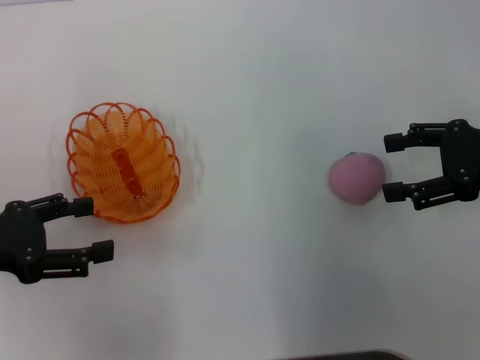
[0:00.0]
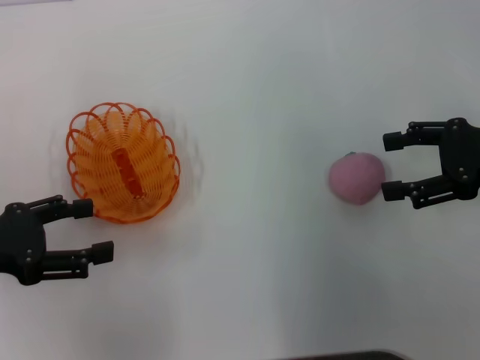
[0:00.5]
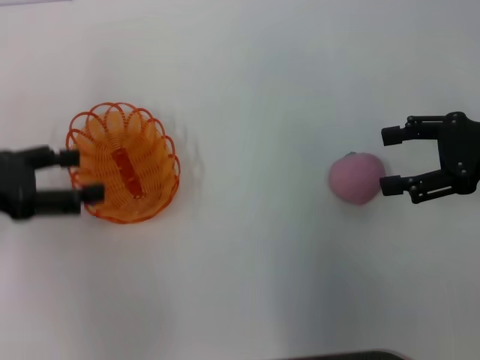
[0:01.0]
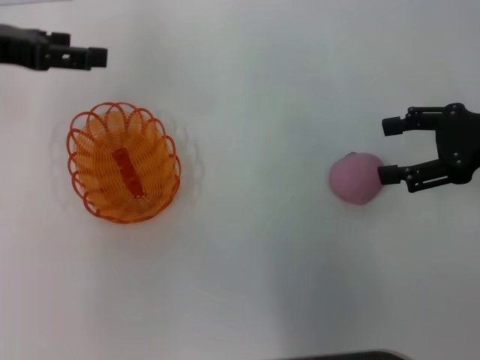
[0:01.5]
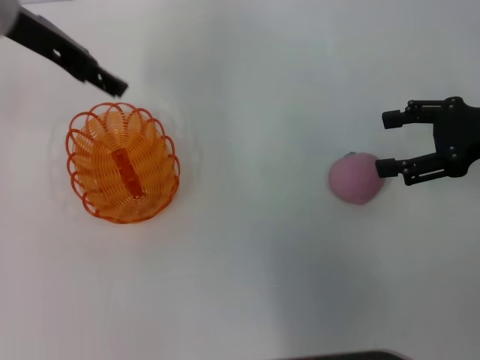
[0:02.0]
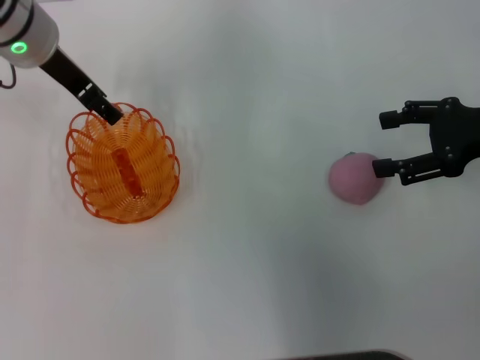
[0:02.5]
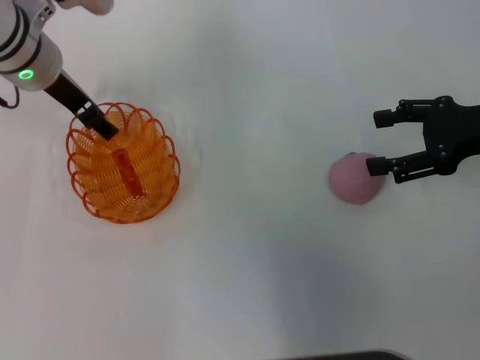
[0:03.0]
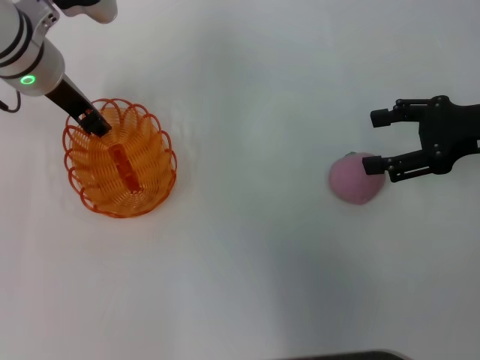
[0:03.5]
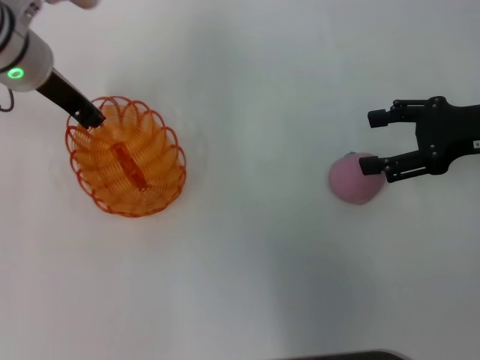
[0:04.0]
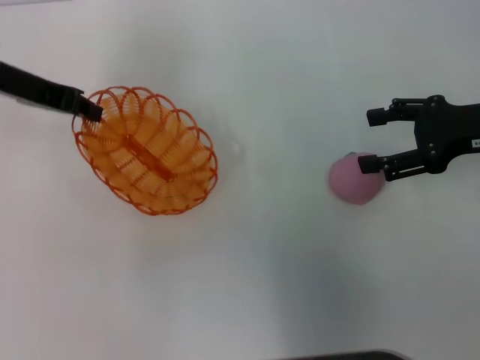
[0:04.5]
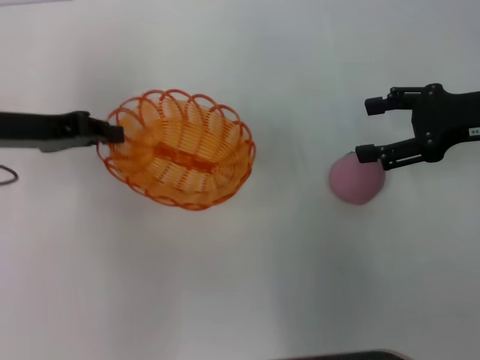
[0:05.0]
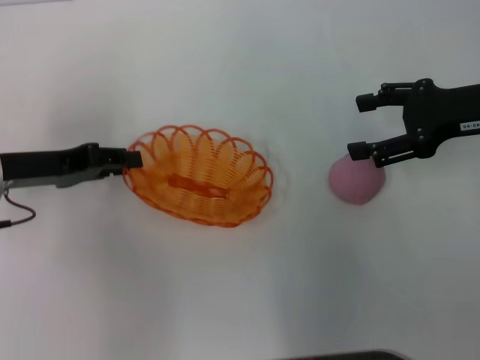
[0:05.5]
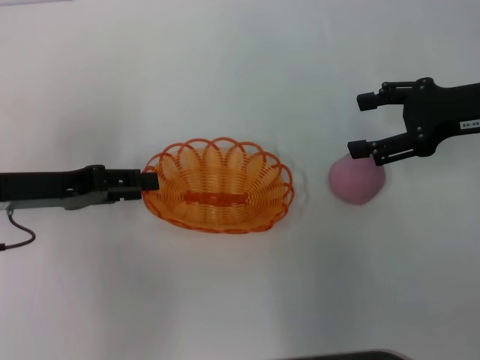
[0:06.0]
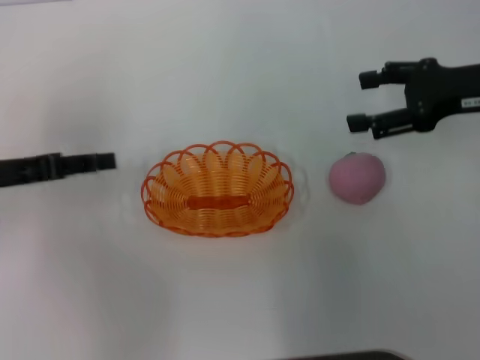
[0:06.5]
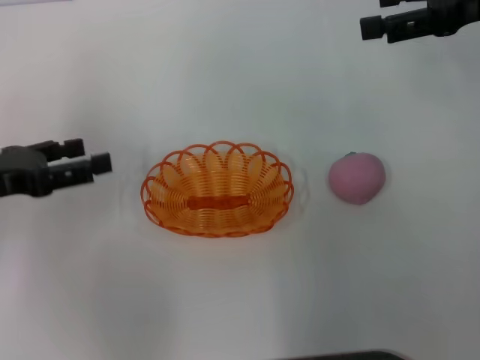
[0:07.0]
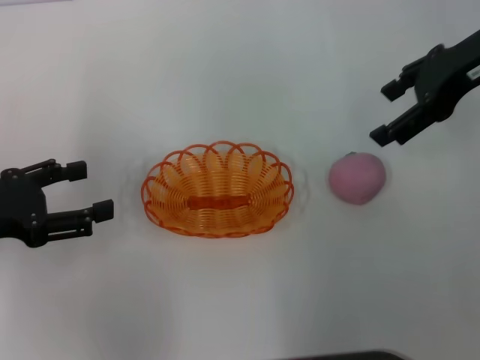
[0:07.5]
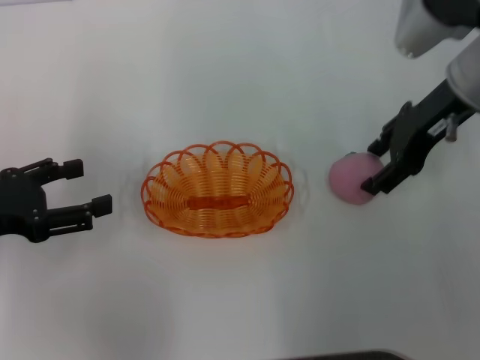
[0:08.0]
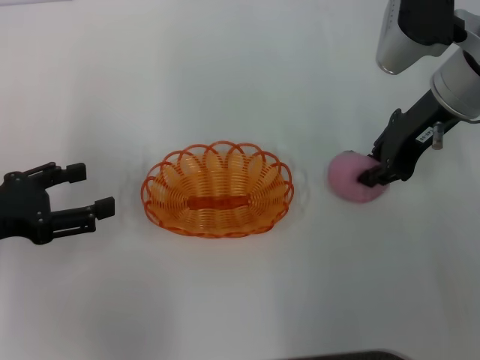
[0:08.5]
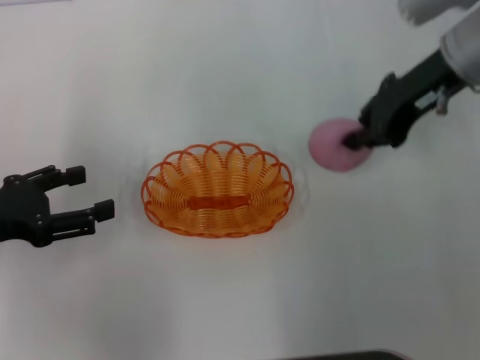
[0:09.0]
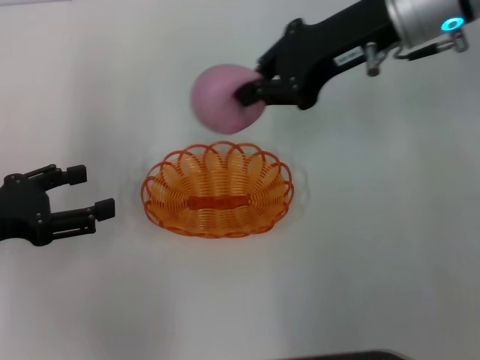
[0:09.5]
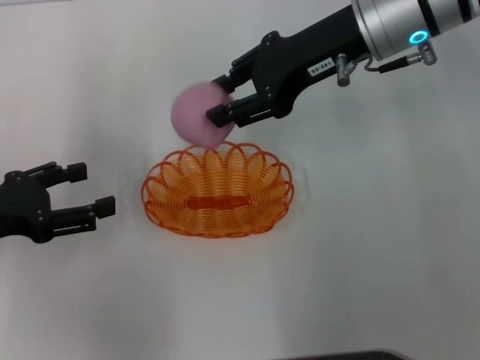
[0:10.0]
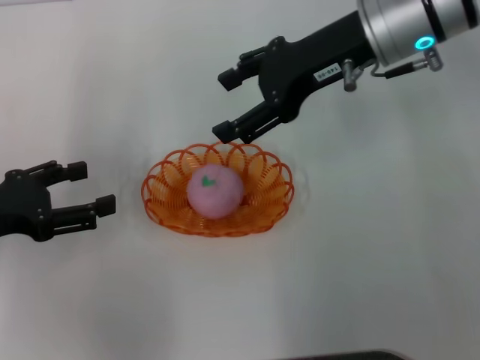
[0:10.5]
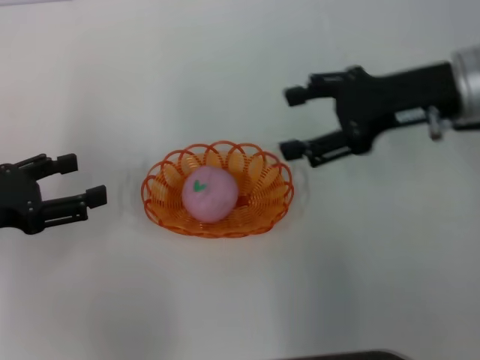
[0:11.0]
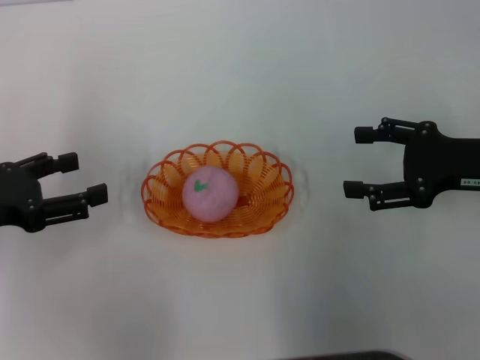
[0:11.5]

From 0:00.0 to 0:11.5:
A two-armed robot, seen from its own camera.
Step, from 0:00.0 to 0:04.0: Pick up the basket with the left gripper.
Step, from 0:04.5 to 0:06.5: Place the basket in the center of view with the left gripper.
Step, from 0:07.0 to 0:09.0: Pick up the peach with the right gripper.
Step, from 0:09.5 to 0:10.5: Place the peach into the basket with the right gripper.
From 0:00.0 to 0:02.0: The left gripper goes about 25 cm forward, to the right and upward.
From 0:02.0 to 0:04.0: The left gripper is displaced downward by roughly 5 cm, and closes.
From 0:04.0 to 0:06.0: The left gripper travels backward, to the left and downward by roughly 15 cm.
From 0:06.0 to 0:07.5: The left gripper shifts roughly 5 cm backward, and opens its fingers. Meanwhile the right gripper goes about 10 cm upward.
From 0:07.5 to 0:09.5: The right gripper is displaced to the left by about 10 cm, and closes.
From 0:09.5 to 0:11.5: The right gripper travels to the right, downward and backward by about 20 cm, and opens its fingers.

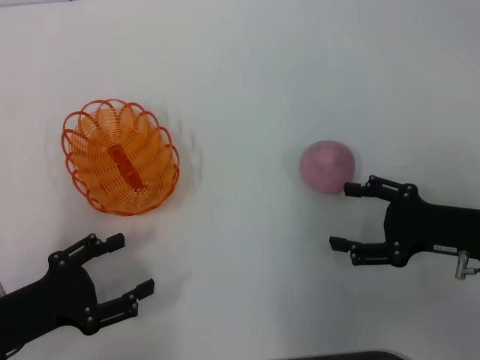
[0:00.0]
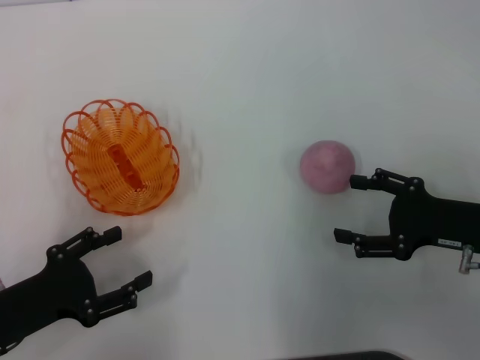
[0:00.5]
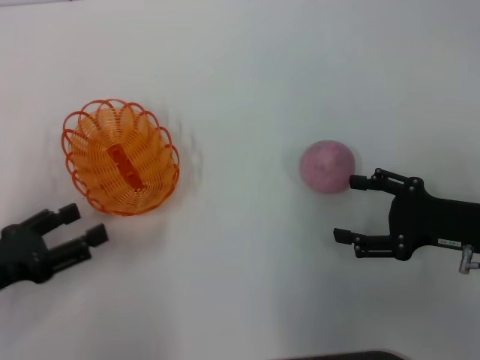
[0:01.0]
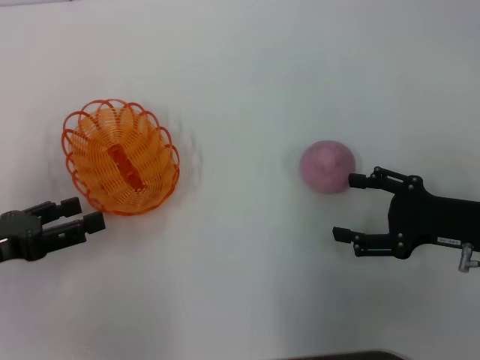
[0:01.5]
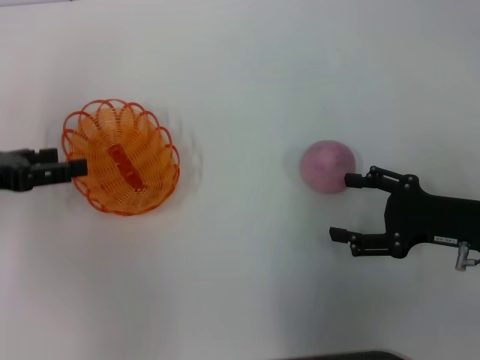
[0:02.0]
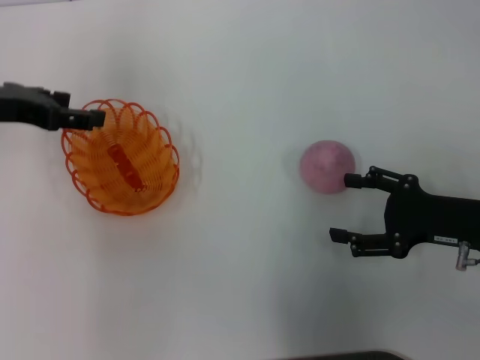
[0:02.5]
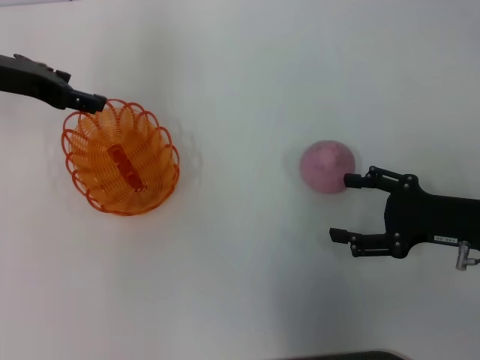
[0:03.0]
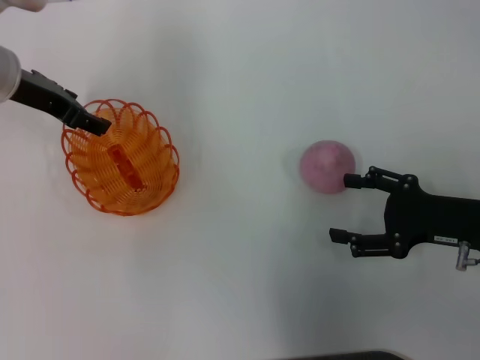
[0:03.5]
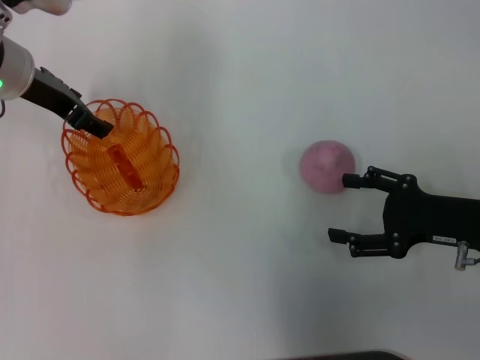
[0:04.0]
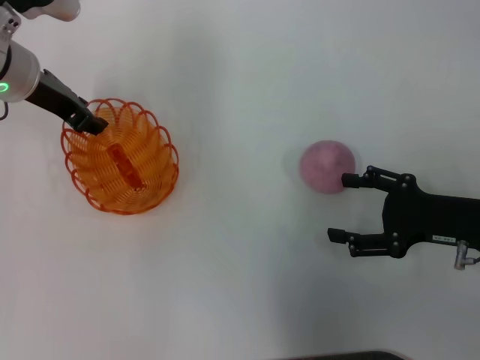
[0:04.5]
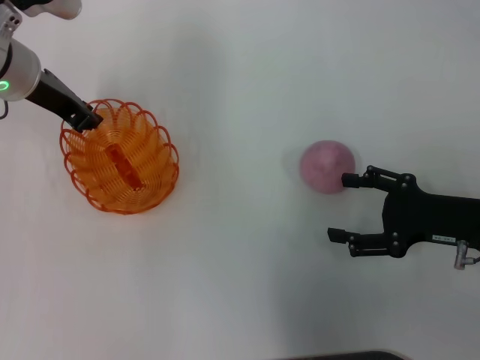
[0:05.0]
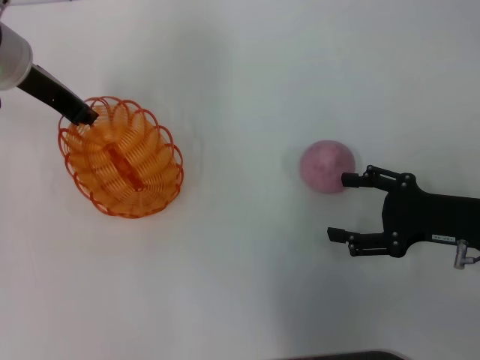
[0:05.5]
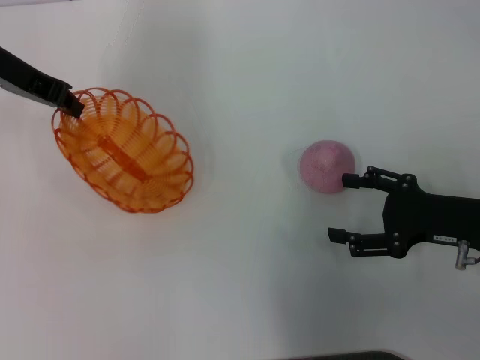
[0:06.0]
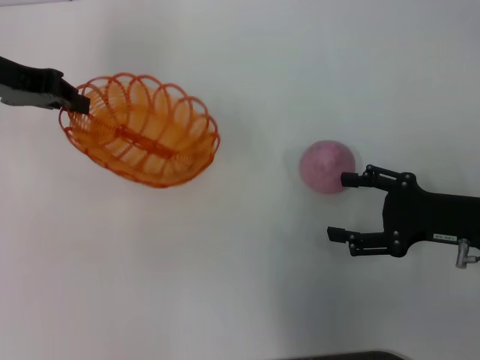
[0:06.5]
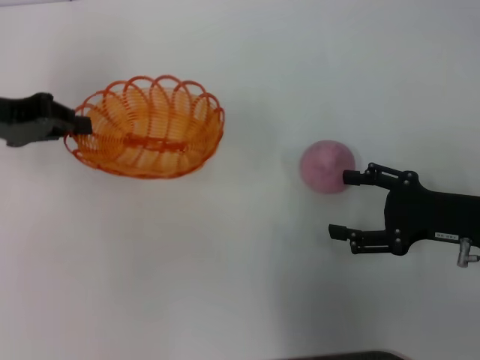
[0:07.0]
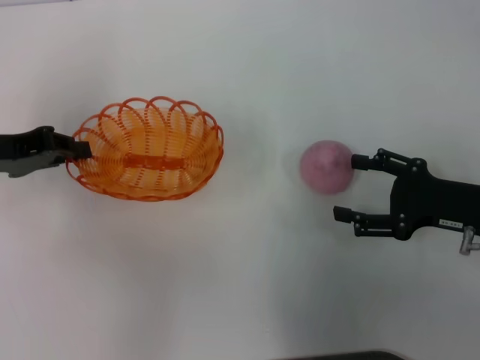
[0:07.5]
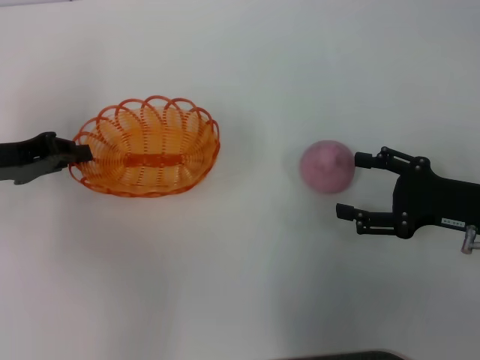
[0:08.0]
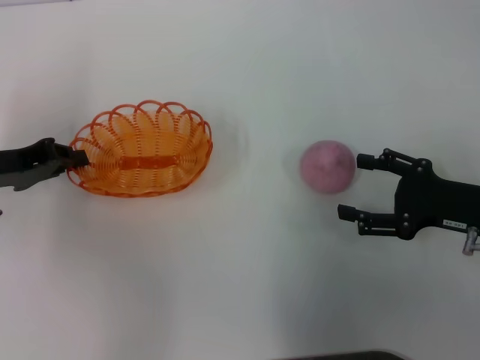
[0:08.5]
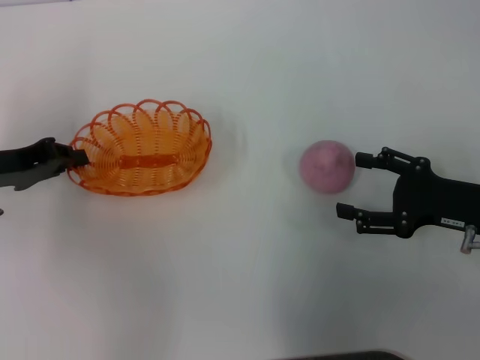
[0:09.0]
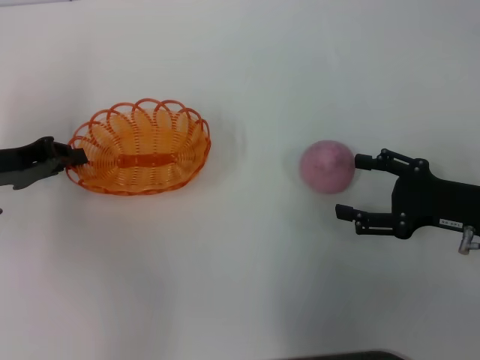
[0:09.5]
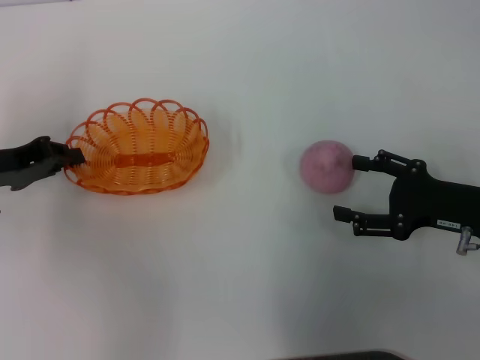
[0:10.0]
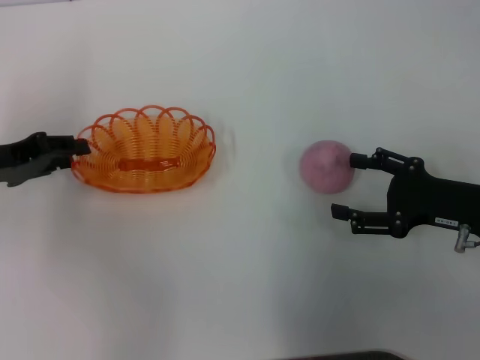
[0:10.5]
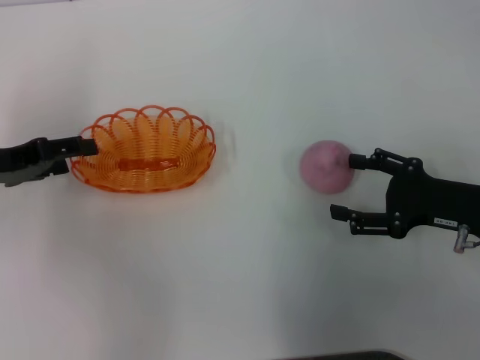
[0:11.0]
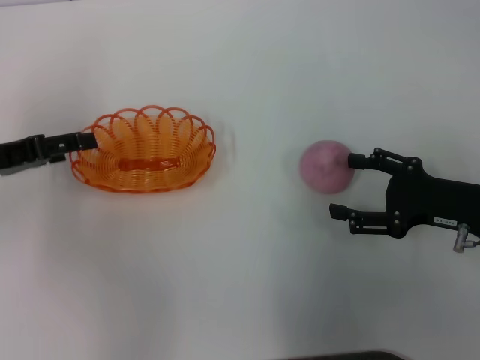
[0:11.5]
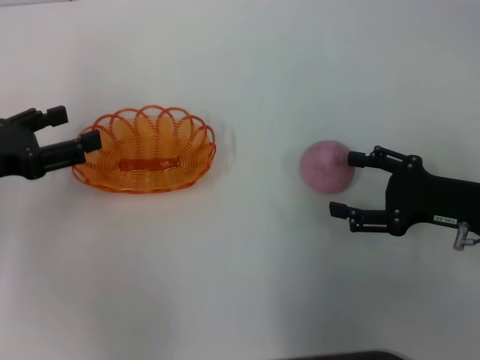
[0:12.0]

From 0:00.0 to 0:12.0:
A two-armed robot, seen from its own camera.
Step, from 0:00.0 to 0:06.0: Pick up the basket with the left gripper.
From 0:00.0 to 0:02.0: The left gripper shifts about 15 cm forward and upward.
From 0:02.0 to 0:04.0: The left gripper travels forward and to the right by approximately 15 cm.
From 0:04.0 to 0:06.0: The left gripper moves about 5 cm, and closes up.
From 0:06.0 to 0:08.0: The left gripper goes about 15 cm backward, downward and to the left.
From 0:08.0 to 0:10.0: There are only small adjustments of the grippers.
From 0:10.0 to 0:12.0: The left gripper opens up.

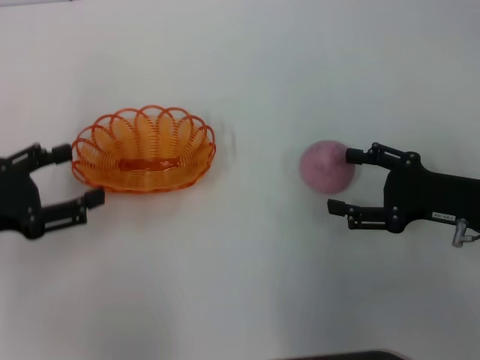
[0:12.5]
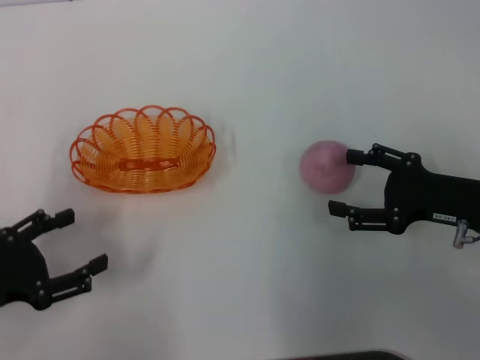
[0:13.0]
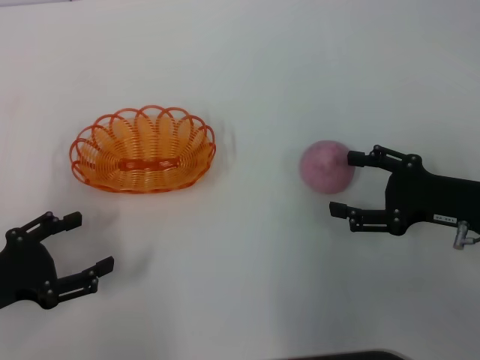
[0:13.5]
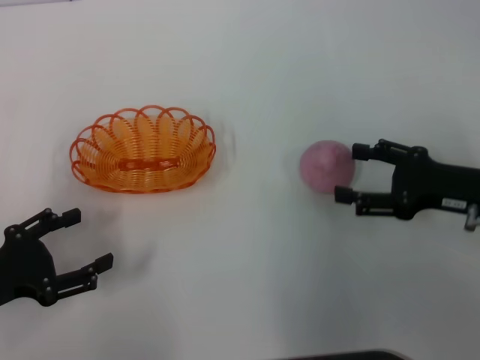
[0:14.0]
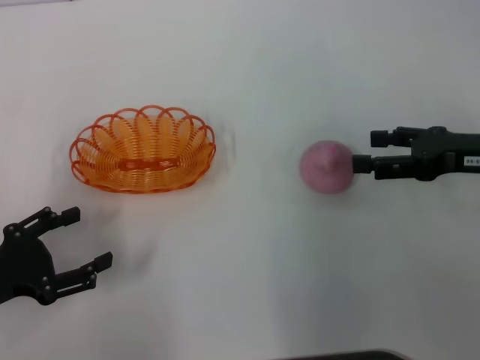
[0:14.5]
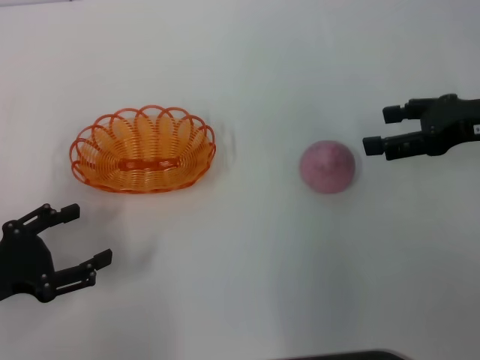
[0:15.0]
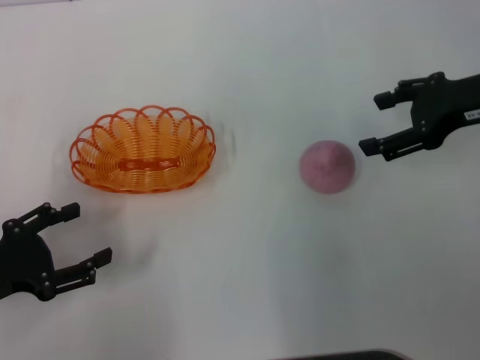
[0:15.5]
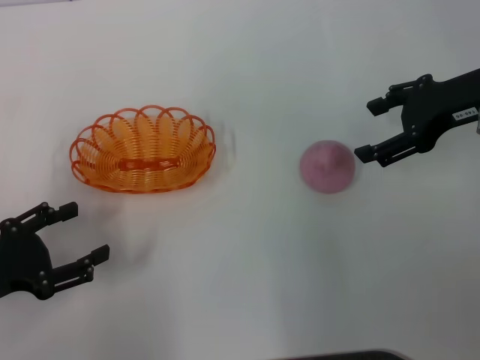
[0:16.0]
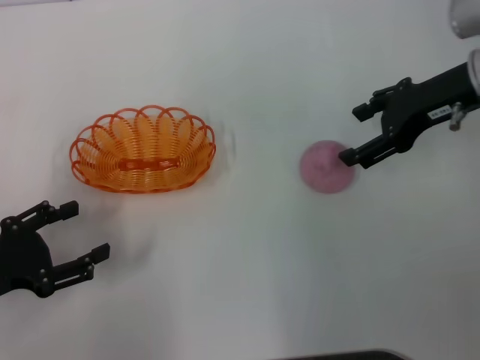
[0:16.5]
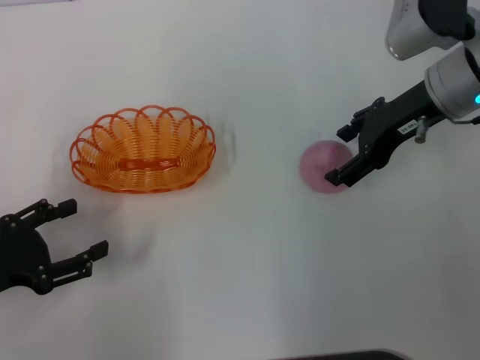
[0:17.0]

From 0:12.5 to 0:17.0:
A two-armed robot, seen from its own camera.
From 0:12.5 to 0:14.5: The right gripper heads upward, covering approximately 5 cm, while the left gripper ends up some 5 cm from where it was.
From 0:14.5 to 0:17.0: The right gripper travels to the left and forward by approximately 10 cm.
